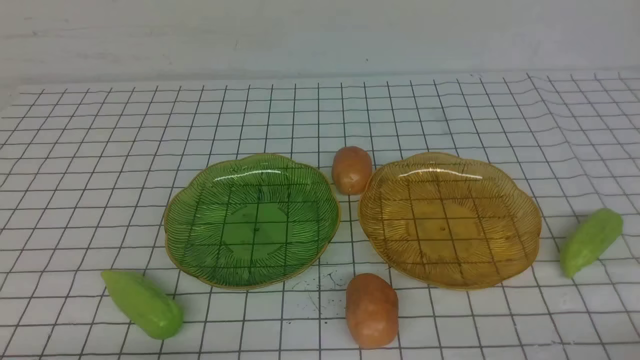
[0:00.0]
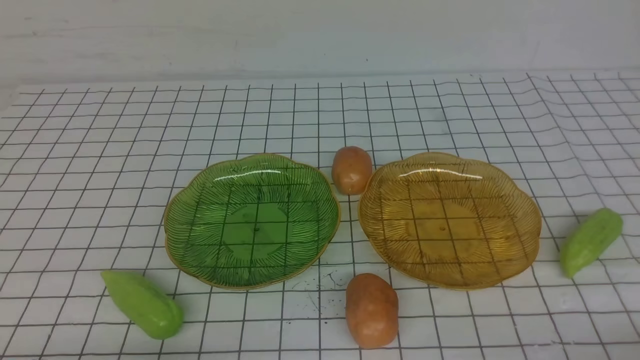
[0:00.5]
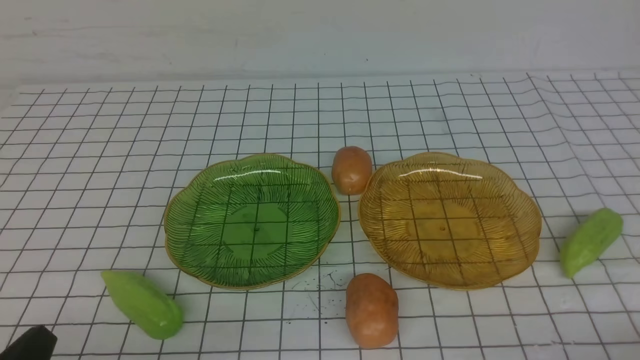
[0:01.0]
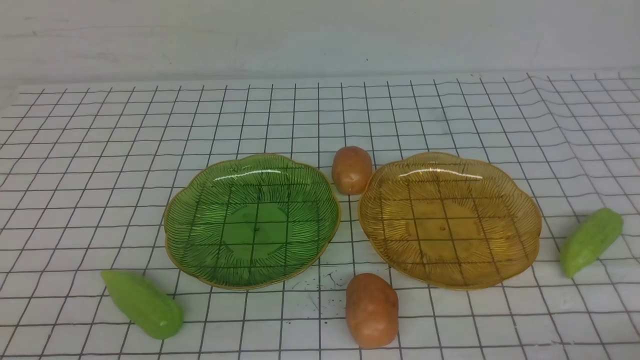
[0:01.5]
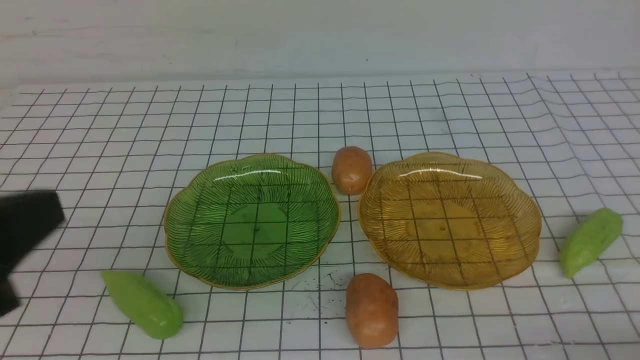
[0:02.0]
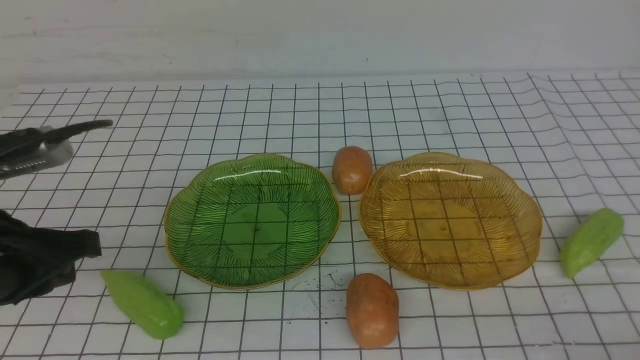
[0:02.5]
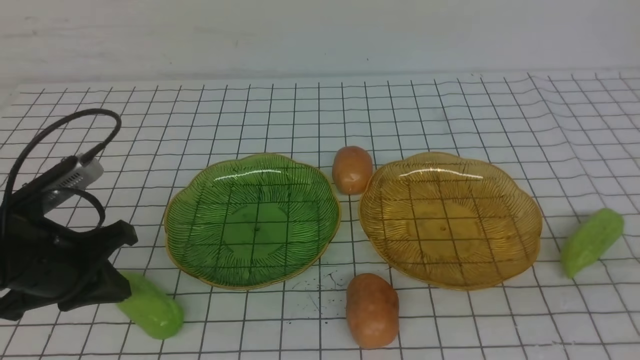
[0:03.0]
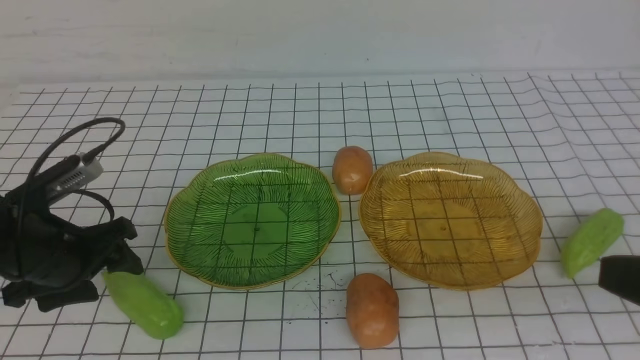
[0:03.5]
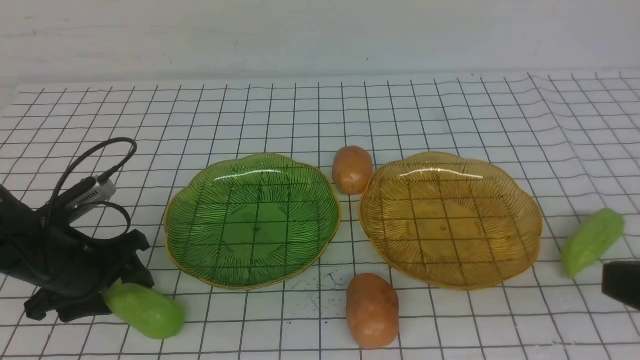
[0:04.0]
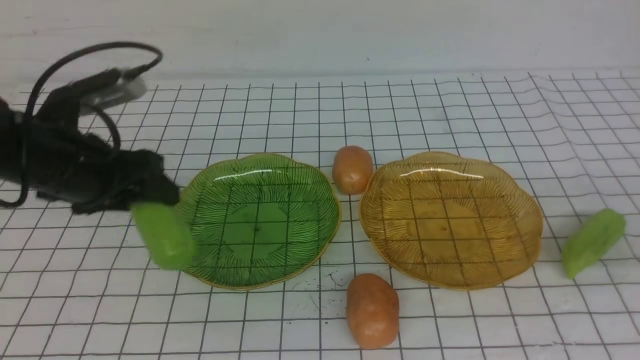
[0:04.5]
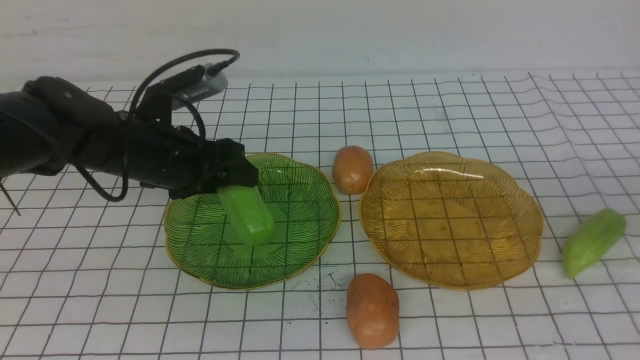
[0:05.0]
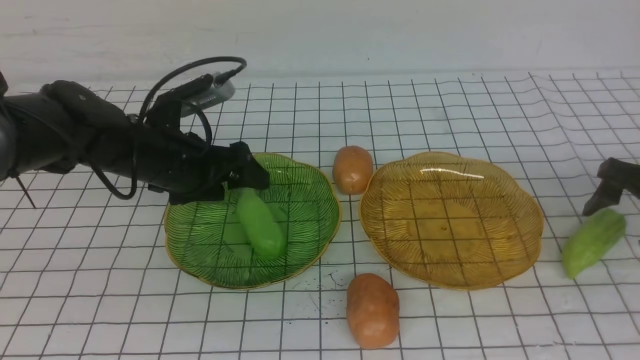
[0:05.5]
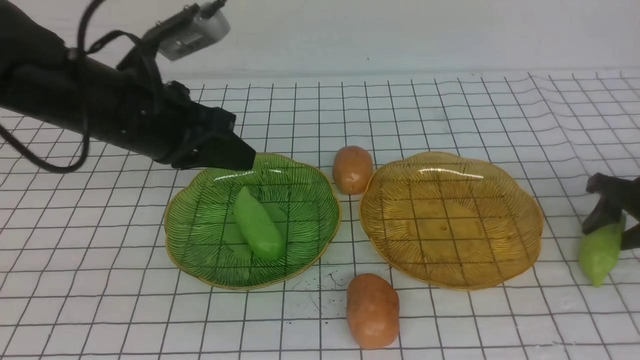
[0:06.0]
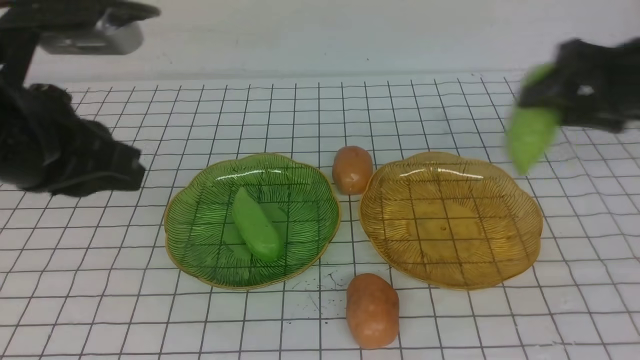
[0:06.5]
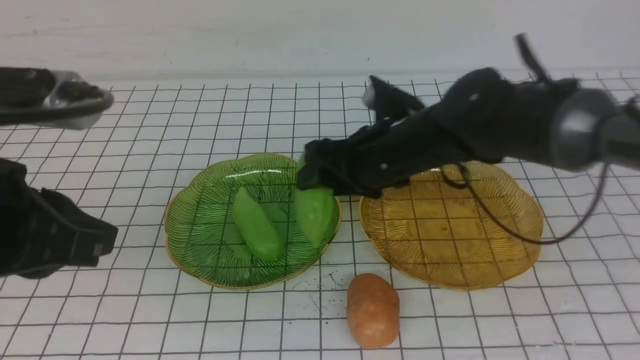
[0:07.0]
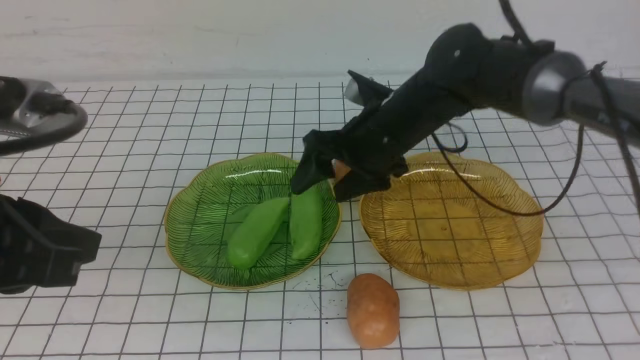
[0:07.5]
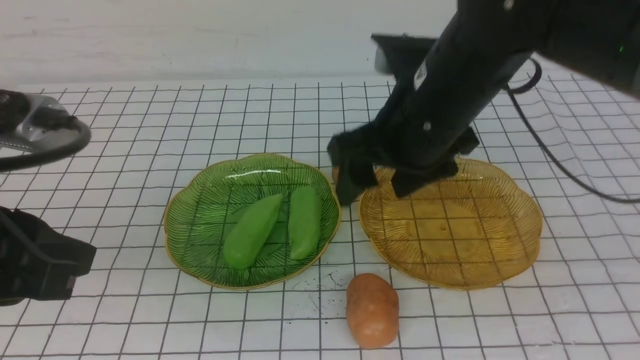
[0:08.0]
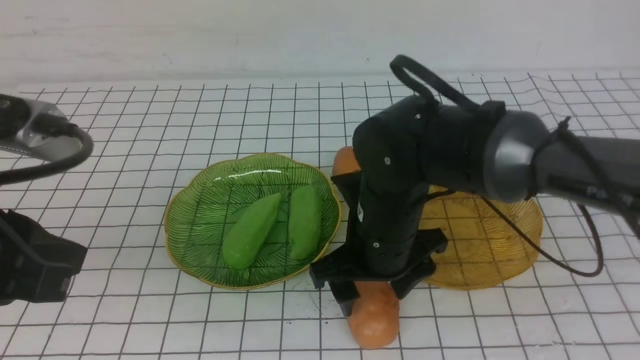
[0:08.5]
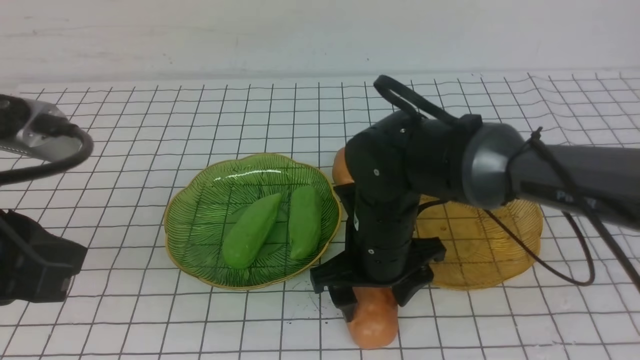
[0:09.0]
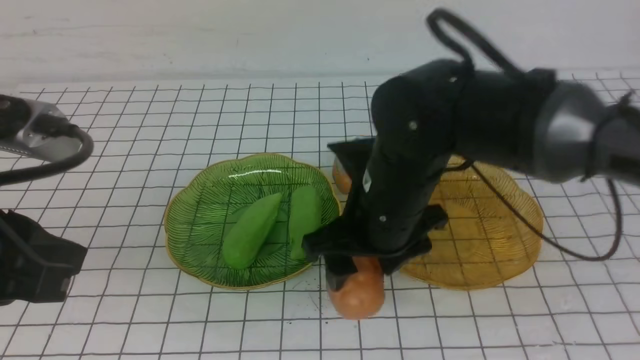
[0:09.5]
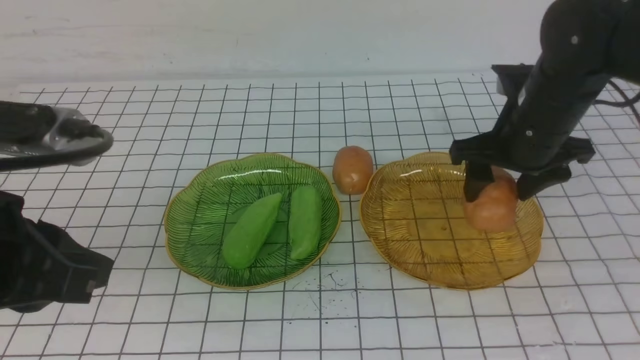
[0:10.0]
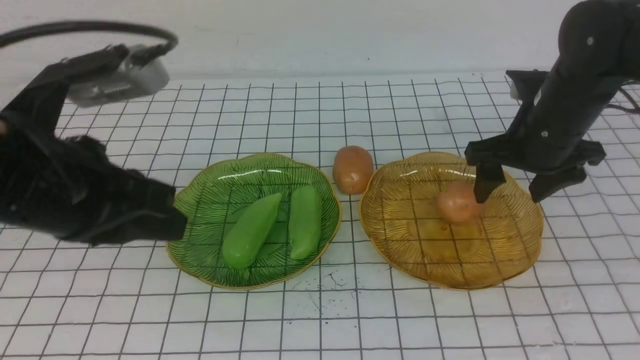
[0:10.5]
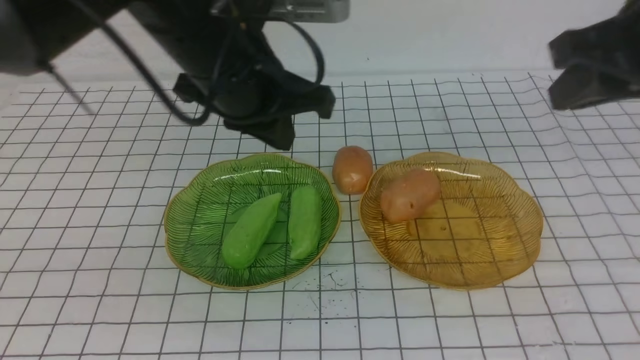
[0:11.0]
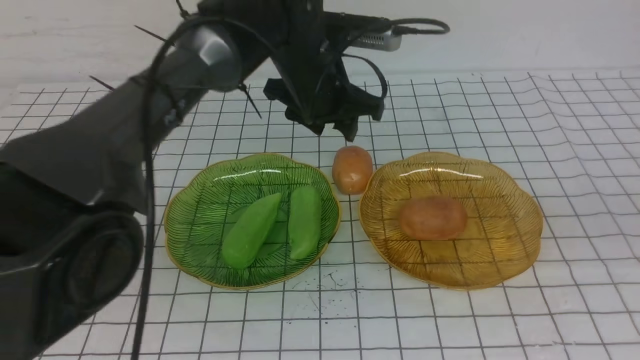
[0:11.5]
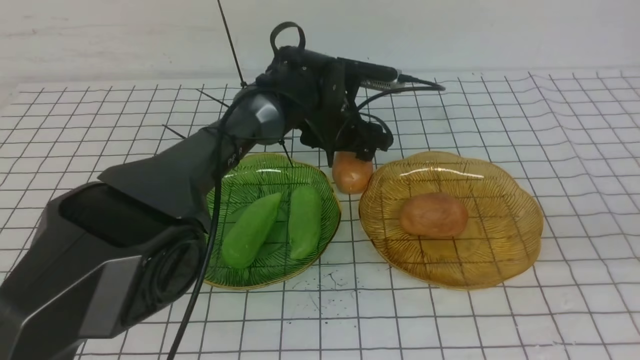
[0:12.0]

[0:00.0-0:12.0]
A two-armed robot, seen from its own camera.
Step, 0:00.0 to 0:05.0: use the left arm to grab a chayote and put it into the left plate.
Step, 0:05.5 to 0:07.0: Grab the chayote with your right arm and put it on the left plate.
Step, 0:08.0 to 0:10.0: Grab a potato with your right arm and put it on the right plate.
0:02.0 to 0:04.0: The left gripper heads forward and downward, covering about 30 cm, and opens up. Meanwhile the right gripper heads upward, covering roughly 15 cm.
0:04.0 to 0:06.0: The right gripper travels forward, downward and to the right by roughly 35 cm, and opens up. The left gripper moves upward and to the right, roughly 20 cm, and closes up.
0:06.0 to 0:08.0: The right gripper goes about 35 cm to the left and upward, while the left gripper is displaced backward by some 20 cm.
0:08.0 to 0:10.0: The right gripper shifts about 10 cm to the right.
0:10.0 to 0:12.0: The right gripper moves backward, upward and to the right, about 30 cm, and closes. Meanwhile the left gripper is displaced forward, to the right and downward by approximately 40 cm, and opens up.

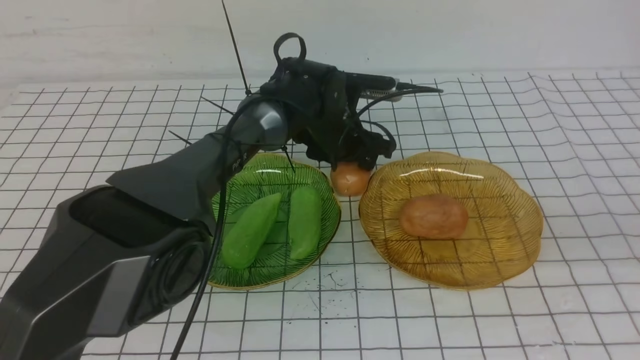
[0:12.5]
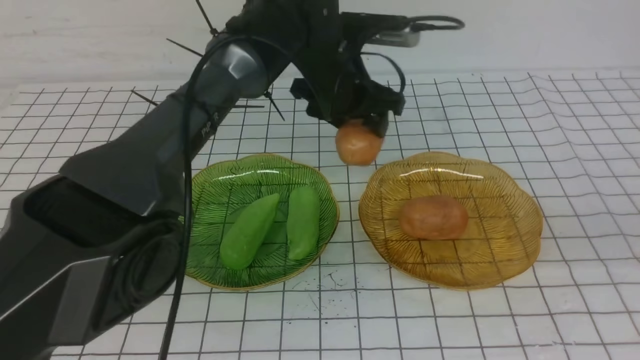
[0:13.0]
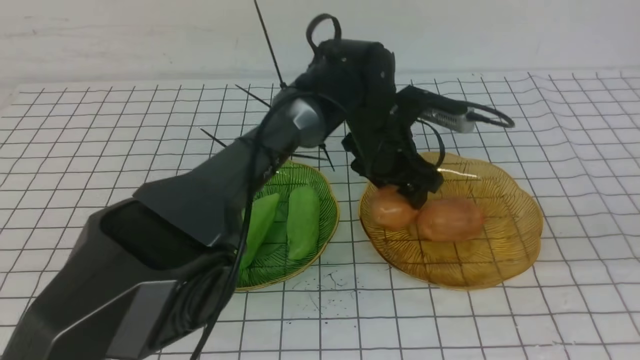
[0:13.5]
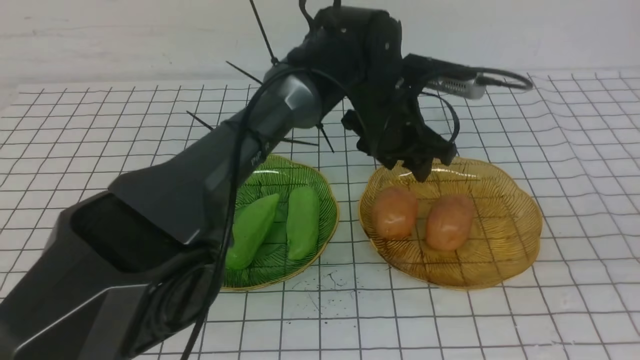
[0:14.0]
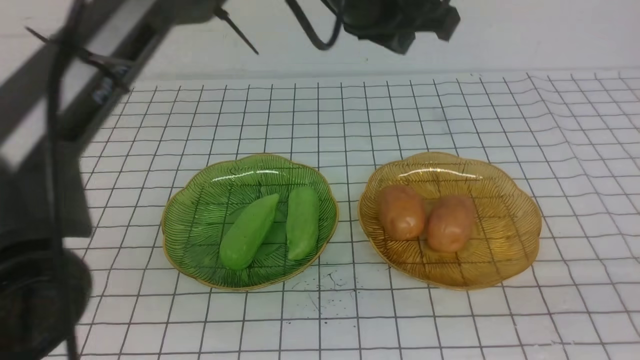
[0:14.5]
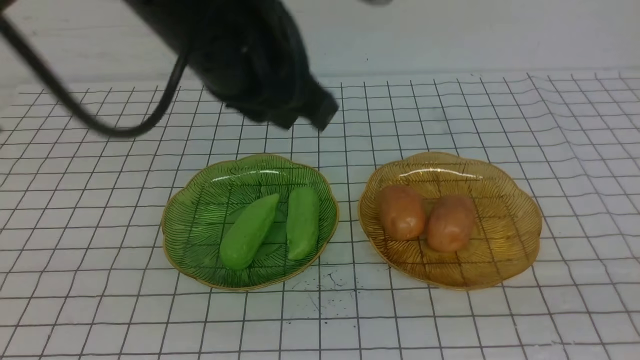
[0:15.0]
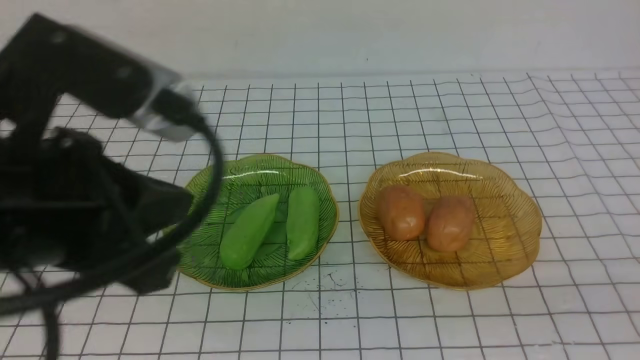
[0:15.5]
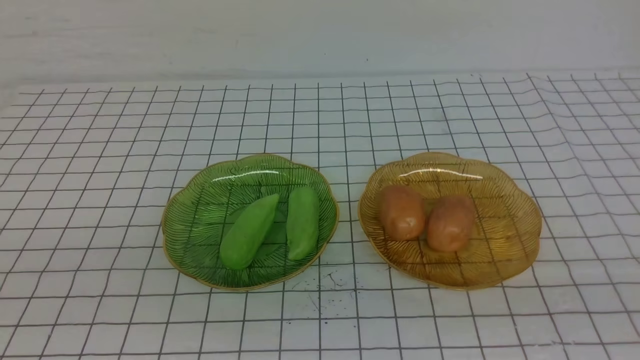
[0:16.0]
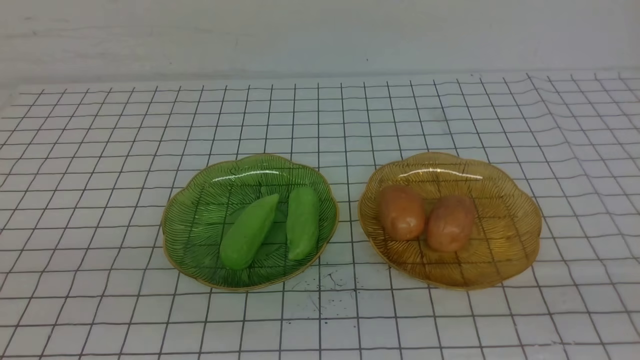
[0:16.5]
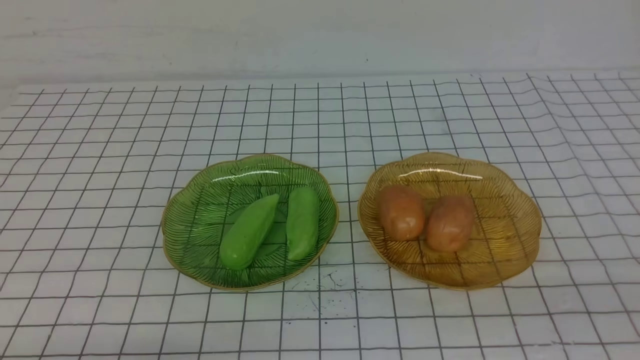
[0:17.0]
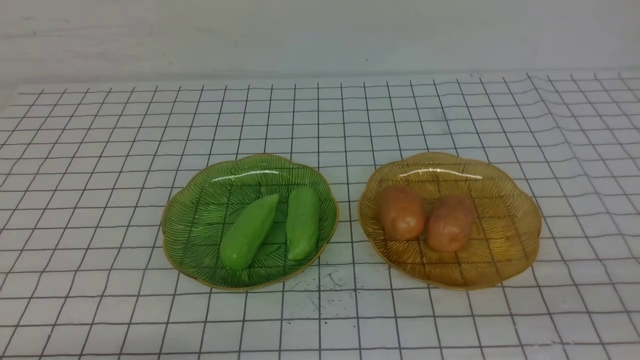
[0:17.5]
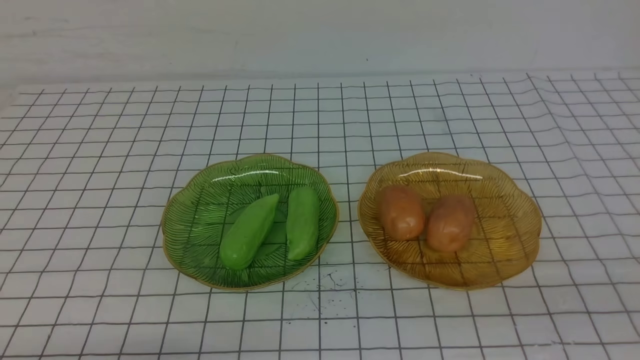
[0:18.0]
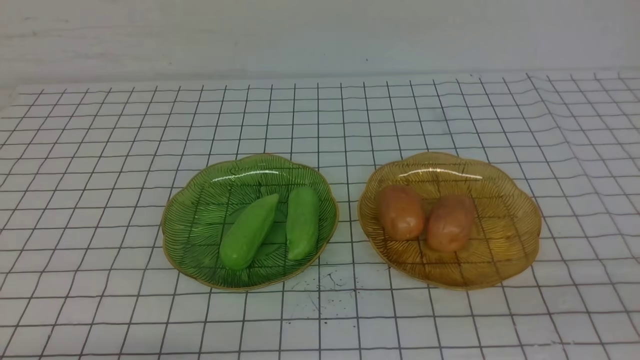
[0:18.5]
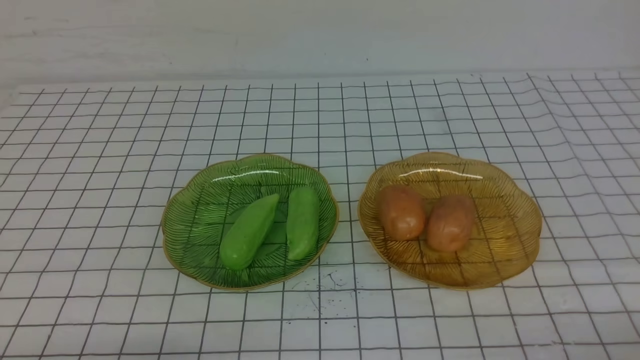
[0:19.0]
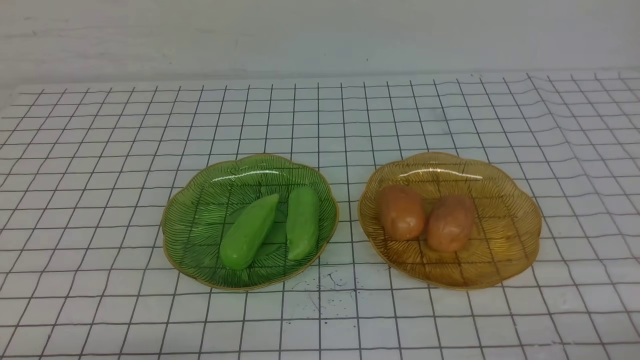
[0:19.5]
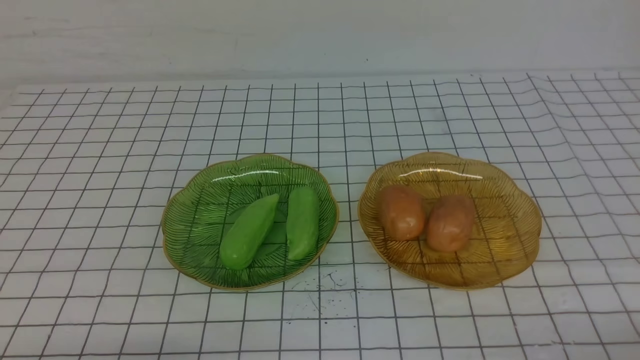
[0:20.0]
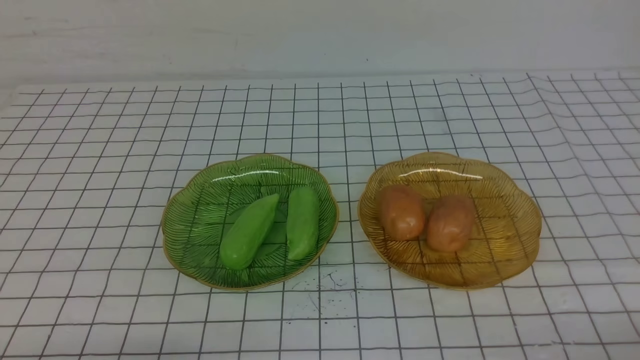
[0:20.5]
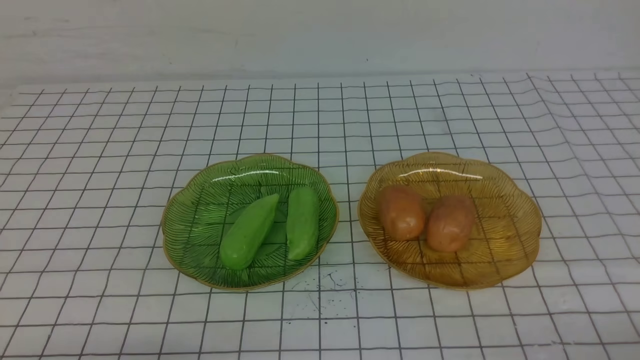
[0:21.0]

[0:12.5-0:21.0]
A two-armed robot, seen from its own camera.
0:12.5 to 0:14.5: The left gripper goes approximately 25 cm upward and backward, and closes up, while the right gripper is displaced backward by some 10 cm.
0:14.5 to 0:16.5: The left gripper heads backward and to the left, covering some 40 cm.
